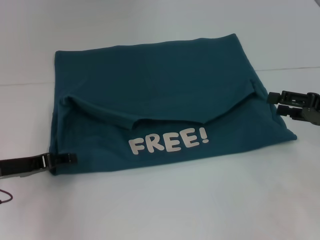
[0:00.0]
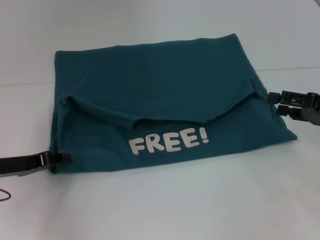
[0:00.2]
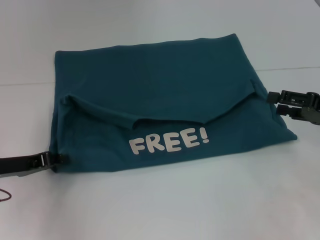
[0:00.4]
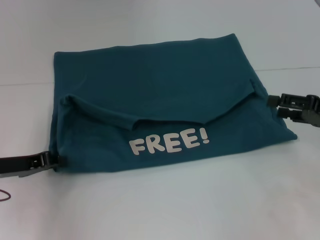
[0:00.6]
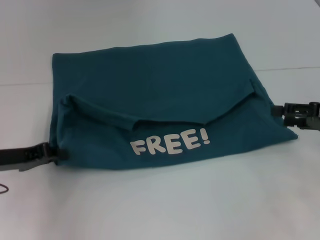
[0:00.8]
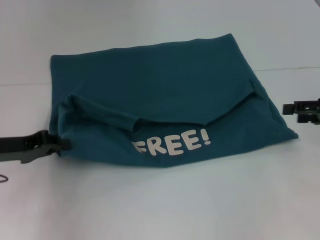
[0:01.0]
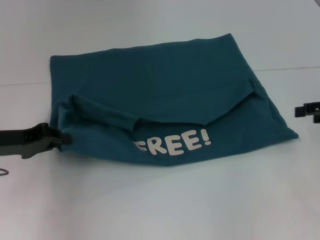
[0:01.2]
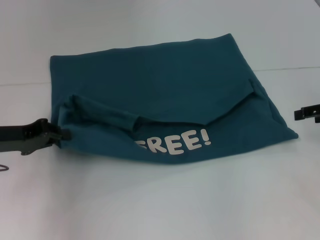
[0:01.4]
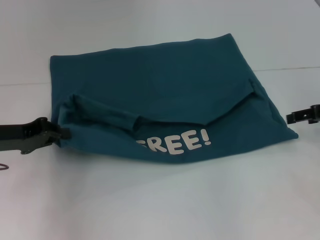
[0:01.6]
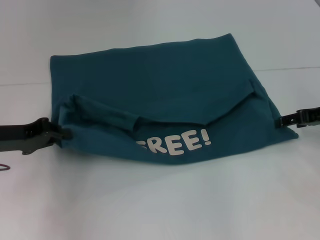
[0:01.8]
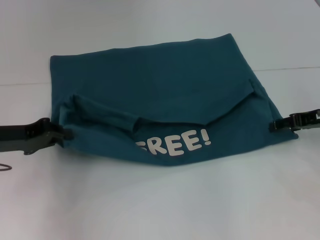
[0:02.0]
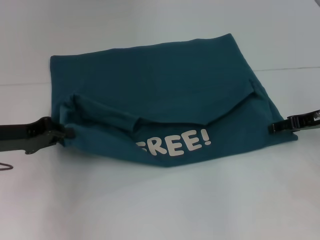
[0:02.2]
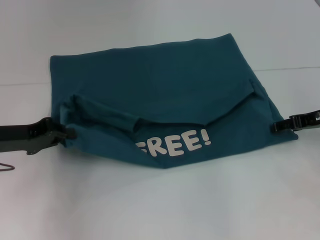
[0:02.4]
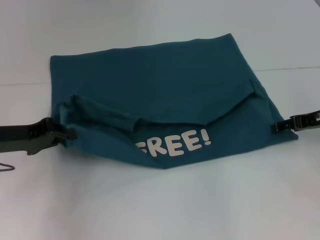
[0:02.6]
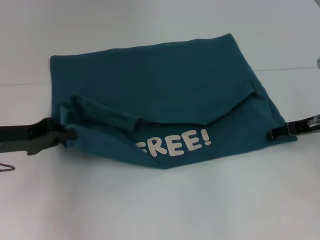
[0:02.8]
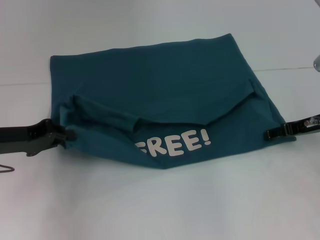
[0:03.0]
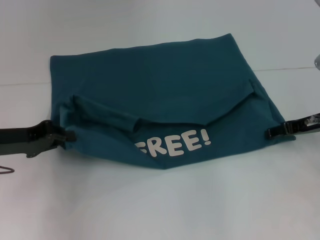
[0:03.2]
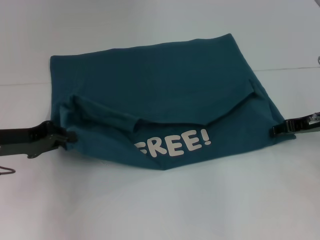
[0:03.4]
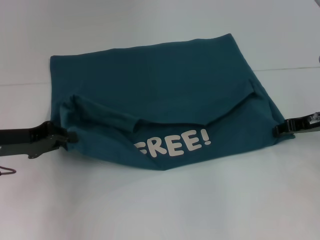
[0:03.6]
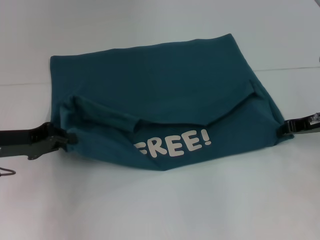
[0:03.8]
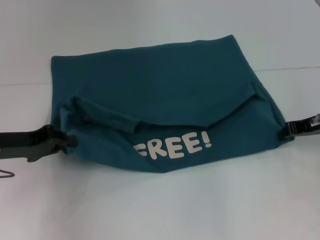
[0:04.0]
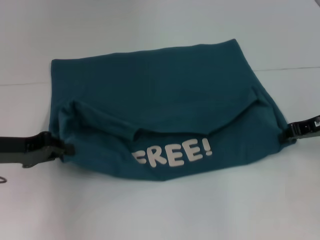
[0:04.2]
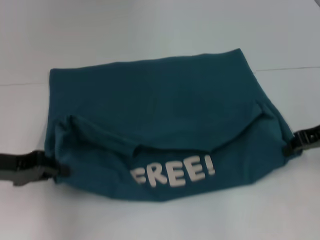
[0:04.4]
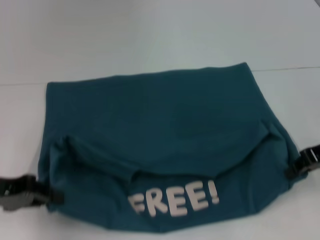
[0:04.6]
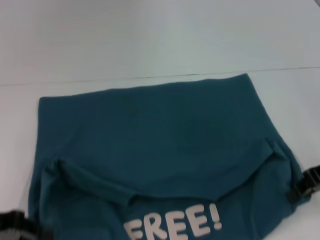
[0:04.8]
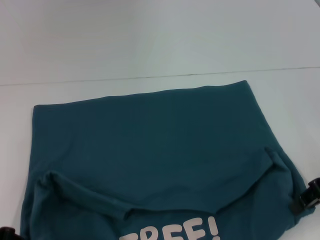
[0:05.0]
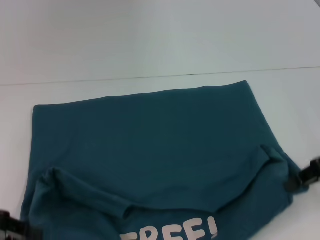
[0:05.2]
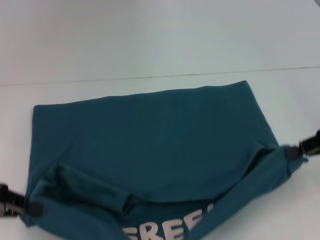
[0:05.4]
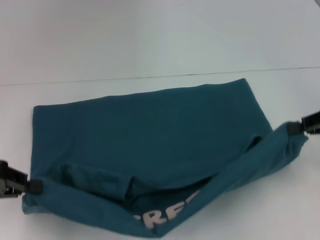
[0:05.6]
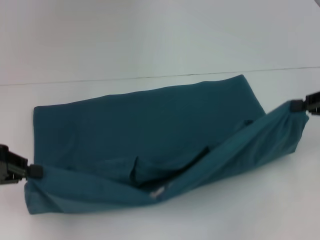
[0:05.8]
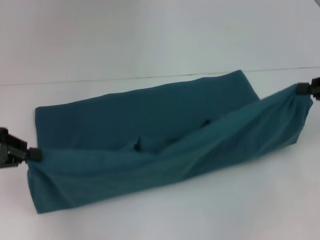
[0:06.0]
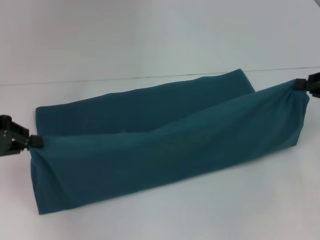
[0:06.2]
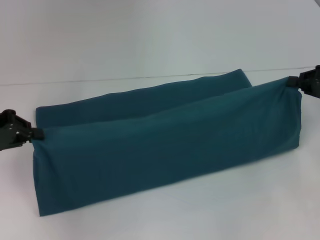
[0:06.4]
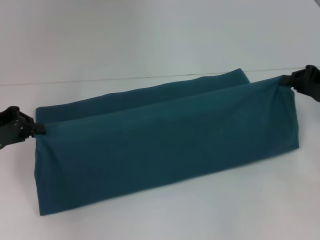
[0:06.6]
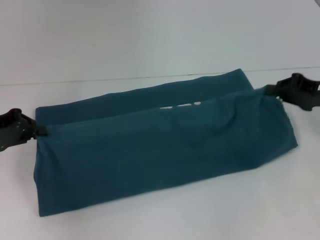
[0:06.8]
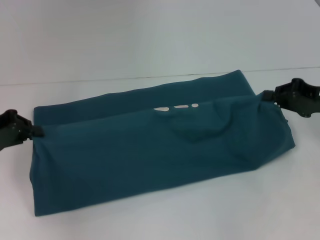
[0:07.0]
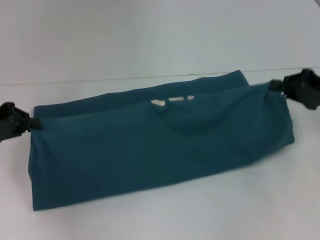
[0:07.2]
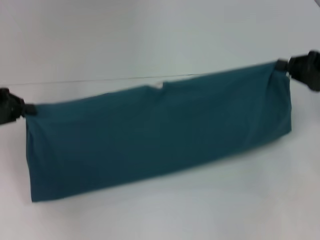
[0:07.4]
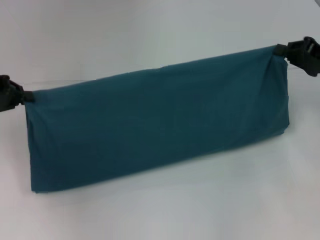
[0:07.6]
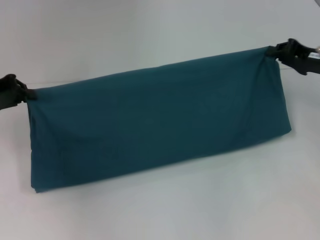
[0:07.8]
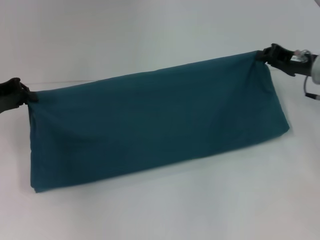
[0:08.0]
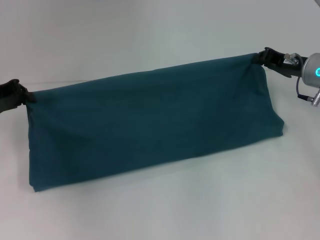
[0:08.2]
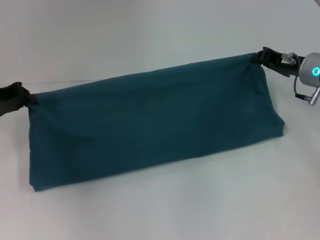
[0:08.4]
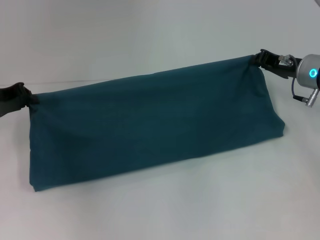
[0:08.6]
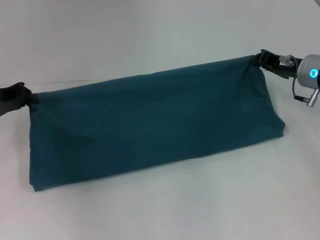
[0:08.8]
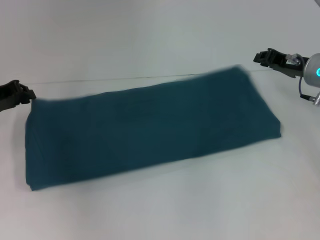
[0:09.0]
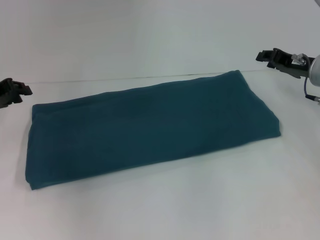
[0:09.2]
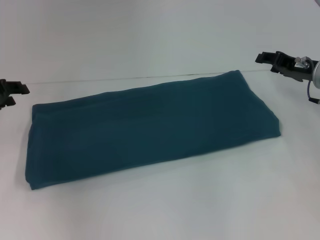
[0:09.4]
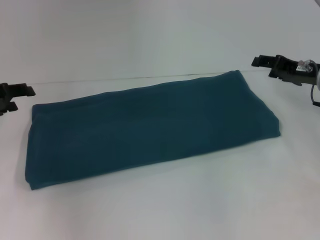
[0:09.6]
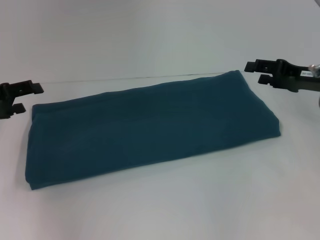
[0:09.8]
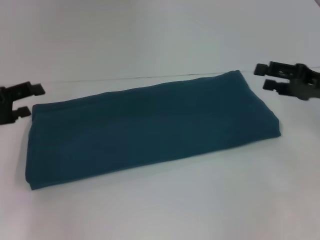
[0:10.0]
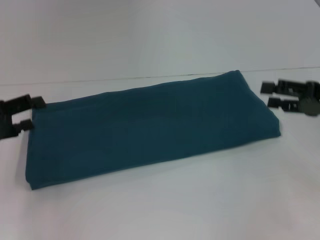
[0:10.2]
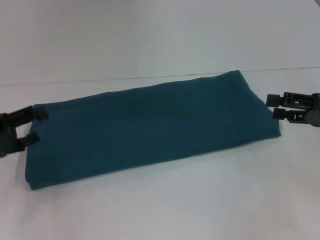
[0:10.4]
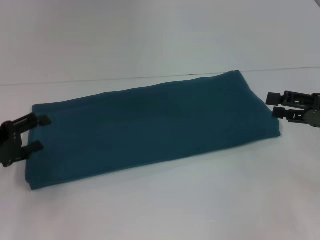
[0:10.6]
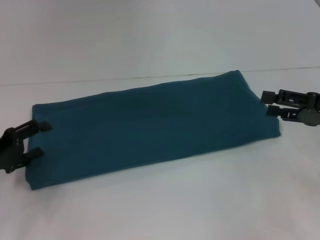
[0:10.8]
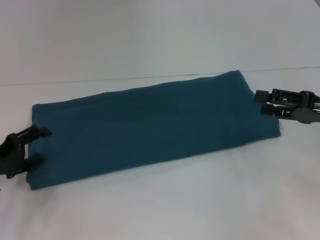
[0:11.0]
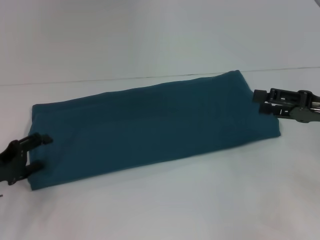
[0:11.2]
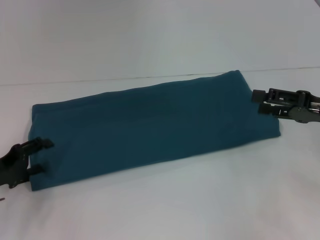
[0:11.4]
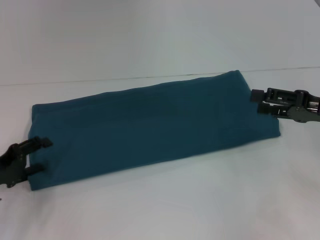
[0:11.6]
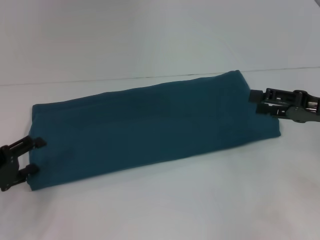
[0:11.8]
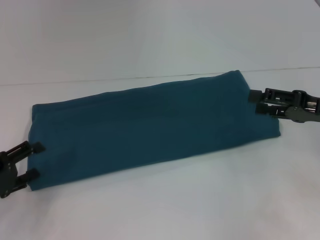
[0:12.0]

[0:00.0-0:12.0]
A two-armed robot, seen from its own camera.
Step, 0:00.0 to 0:04.8: Pull the clothes with your left hand.
Step, 0:00.0 to 0:04.8: Pull the clothes with your right hand.
Step, 0:05.0 to 0:09.2: Fold the clothes to the right.
0:00.0 to 0:01.6: The left gripper shifts approximately 5 cm upward, and closes up, while the right gripper shifts by about 5 cm.
0:01.6 to 0:03.0: The right gripper changes place by roughly 5 cm.
0:03.0 to 0:04.4: The right gripper moves some 5 cm, and closes its fingers.
0:04.4 to 0:06.0: The left gripper is displaced upward by roughly 5 cm, and reaches about 5 cm backward, then returns; the right gripper moves to the right, approximately 5 cm.
0:06.0 to 0:07.6: The right gripper shifts by about 5 cm; the left gripper moves forward, about 5 cm.
0:07.6 to 0:09.0: The right gripper goes some 5 cm to the left.
0:09.0 to 0:10.4: The right gripper moves backward and to the right, roughly 15 cm, and opens up. The left gripper travels backward by some 10 cm, and opens up.
0:10.4 to 0:12.0: The left gripper heads downward, covering approximately 5 cm.

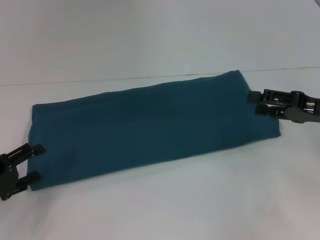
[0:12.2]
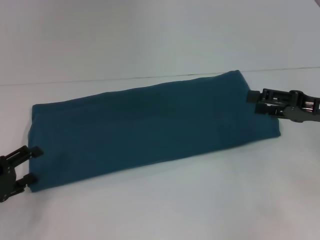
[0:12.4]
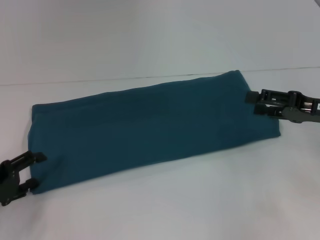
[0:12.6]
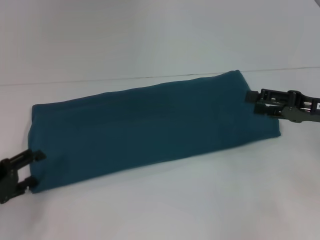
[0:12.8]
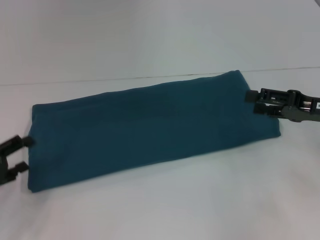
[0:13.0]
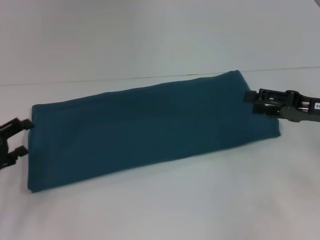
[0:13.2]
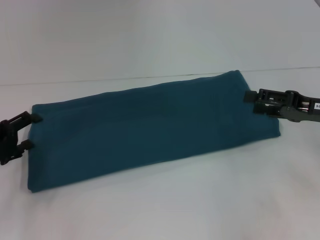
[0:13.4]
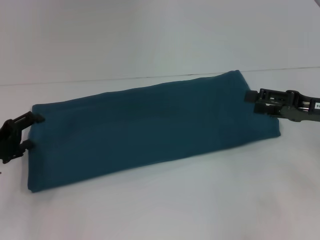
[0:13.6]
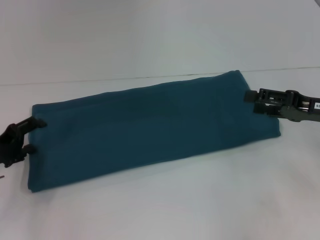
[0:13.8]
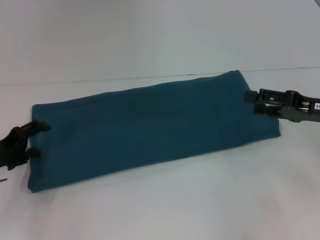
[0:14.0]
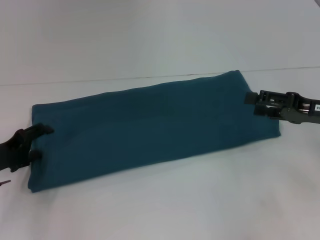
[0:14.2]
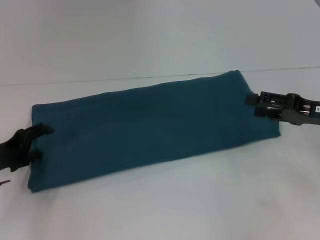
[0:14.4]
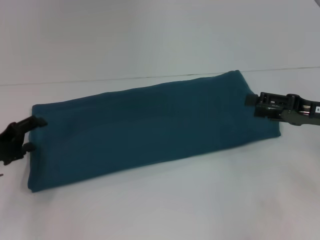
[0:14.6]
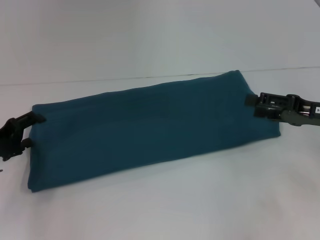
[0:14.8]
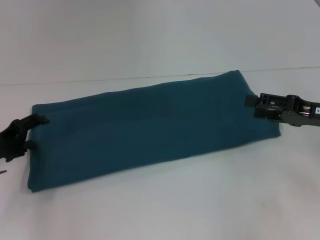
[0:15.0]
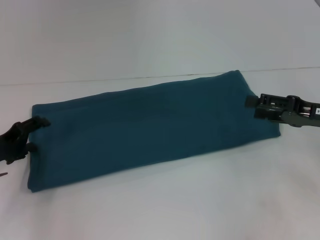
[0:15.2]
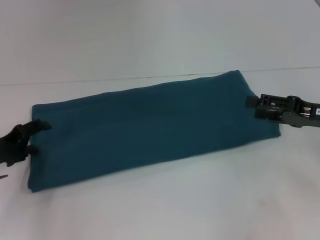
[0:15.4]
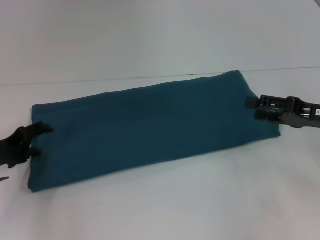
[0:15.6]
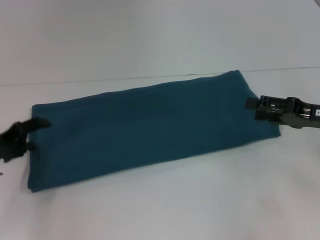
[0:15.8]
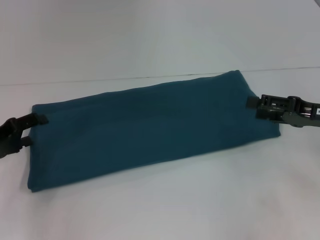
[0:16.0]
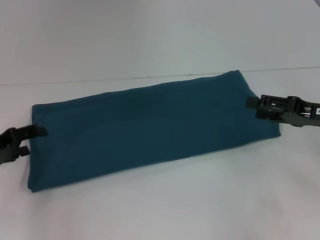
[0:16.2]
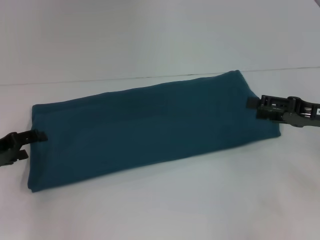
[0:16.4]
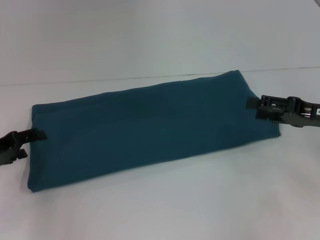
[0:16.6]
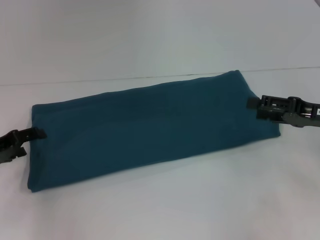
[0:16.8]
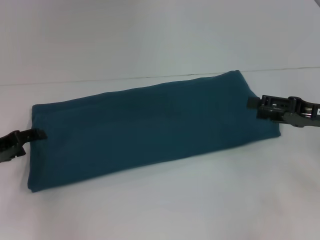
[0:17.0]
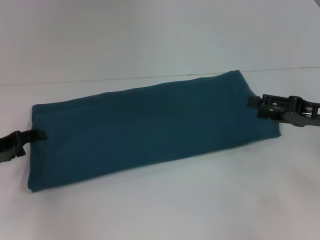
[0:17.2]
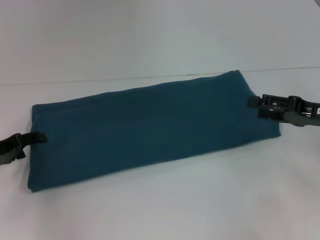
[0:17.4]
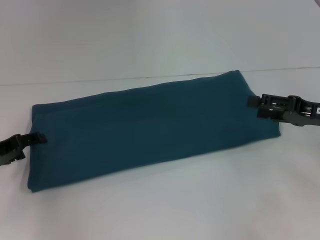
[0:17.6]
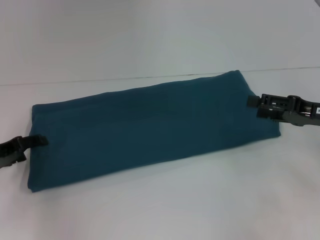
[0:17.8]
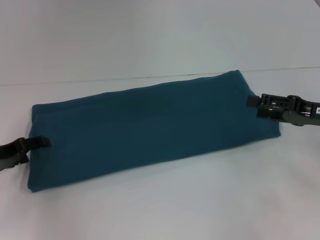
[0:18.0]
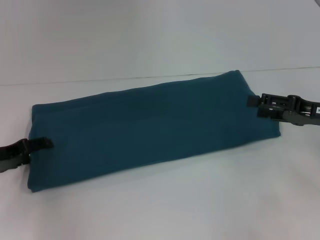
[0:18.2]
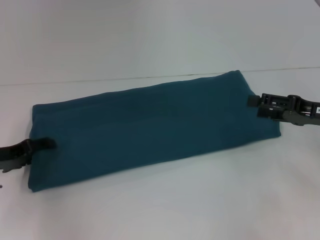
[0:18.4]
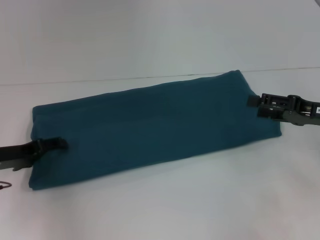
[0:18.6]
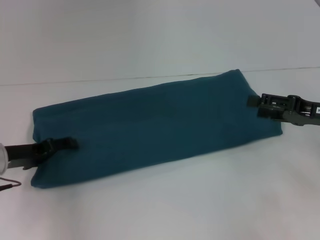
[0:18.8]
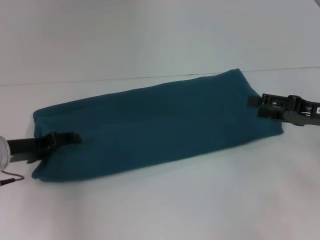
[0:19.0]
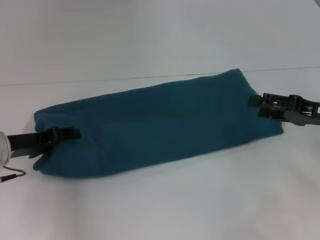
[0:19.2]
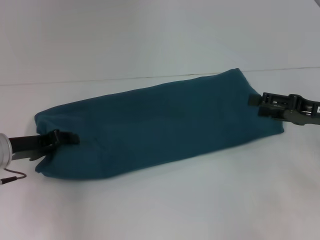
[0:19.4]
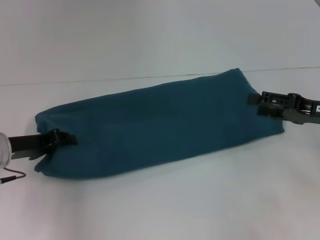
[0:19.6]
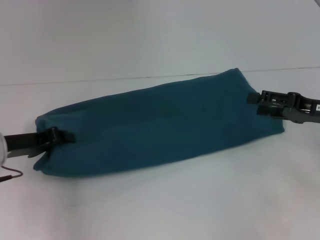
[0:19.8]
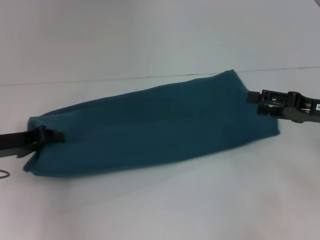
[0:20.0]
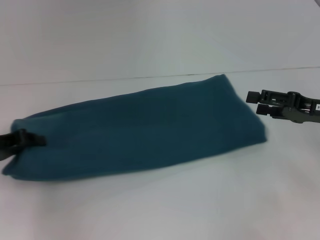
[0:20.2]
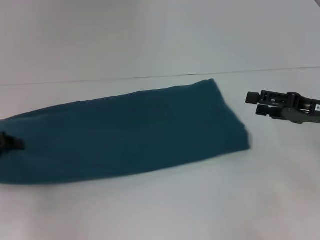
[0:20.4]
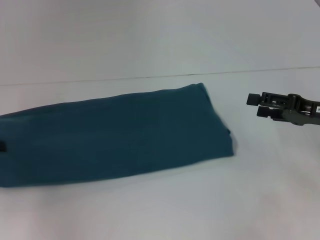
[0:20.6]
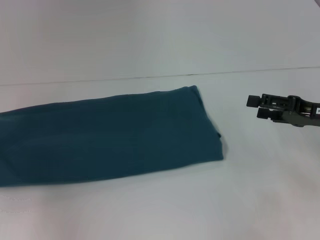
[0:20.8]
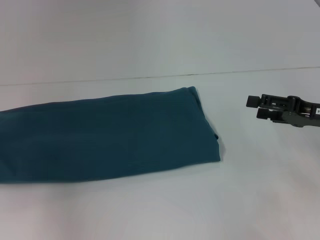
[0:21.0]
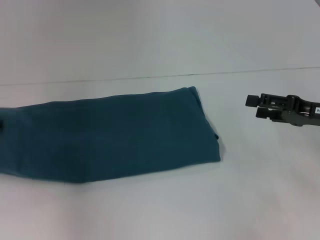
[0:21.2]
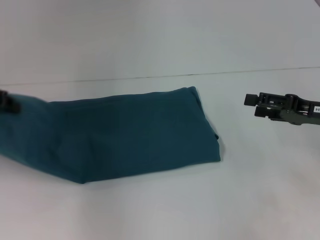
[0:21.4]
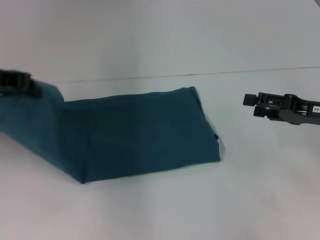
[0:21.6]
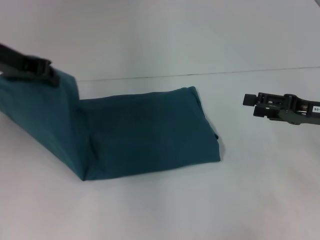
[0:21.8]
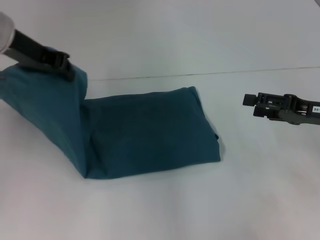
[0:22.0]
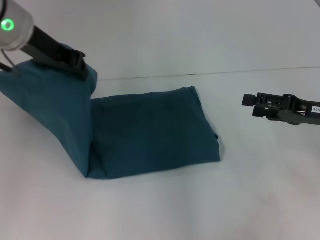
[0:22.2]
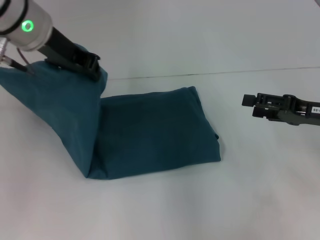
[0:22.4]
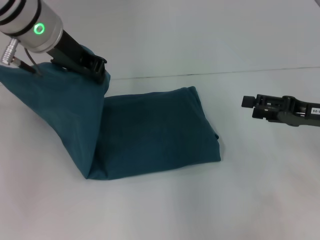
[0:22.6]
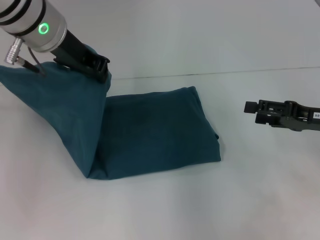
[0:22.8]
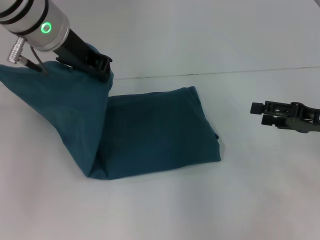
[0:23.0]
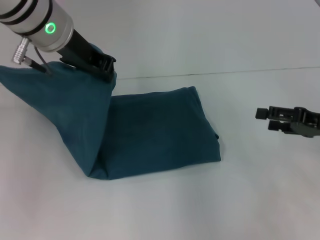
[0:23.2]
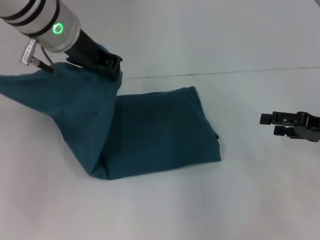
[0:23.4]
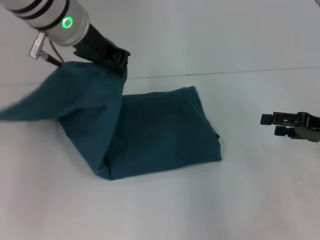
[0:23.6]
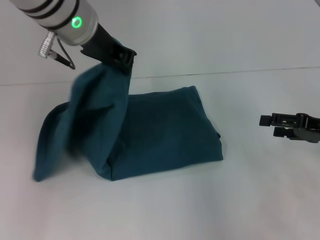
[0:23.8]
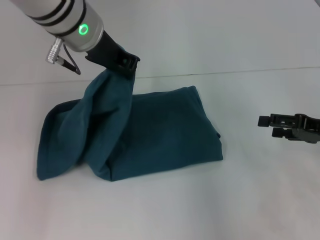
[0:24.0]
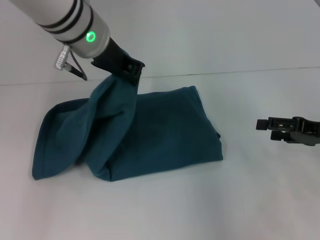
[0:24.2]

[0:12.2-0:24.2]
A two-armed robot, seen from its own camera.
0:12.2 to 0:13.8: The left gripper moves forward, roughly 5 cm.
0:13.8 to 0:15.2: Neither gripper changes place.
0:15.2 to 0:16.6: There are only small adjustments of the grippers.
0:16.6 to 0:18.2: The grippers stay close to where they were, moving slightly.
0:18.2 to 0:19.8: The left gripper closes up.
0:19.8 to 0:21.2: The left gripper shifts approximately 10 cm upward and to the left.
0:21.2 to 0:22.6: The left gripper goes some 25 cm to the right and upward.
0:22.6 to 0:24.2: The left gripper shifts roughly 5 cm to the right.
